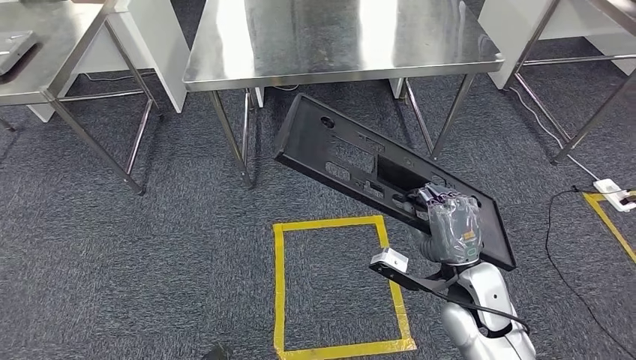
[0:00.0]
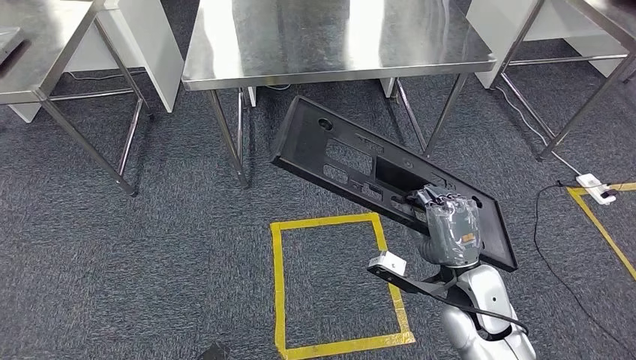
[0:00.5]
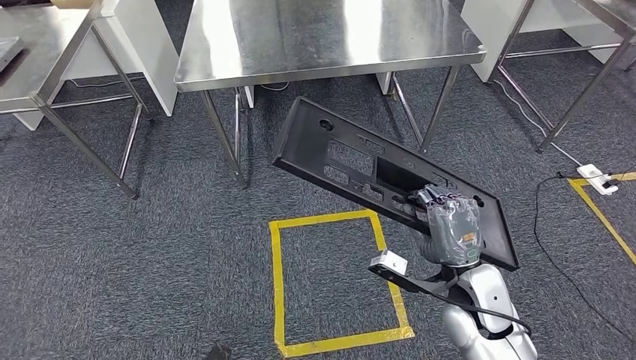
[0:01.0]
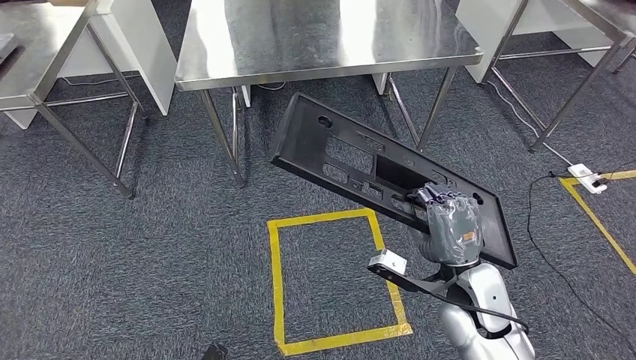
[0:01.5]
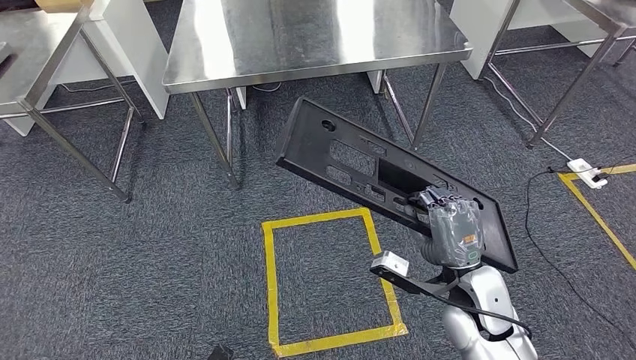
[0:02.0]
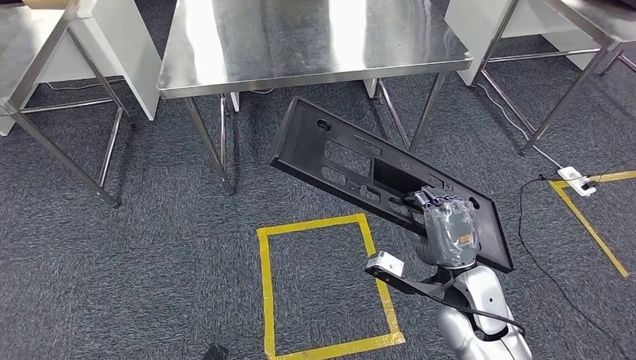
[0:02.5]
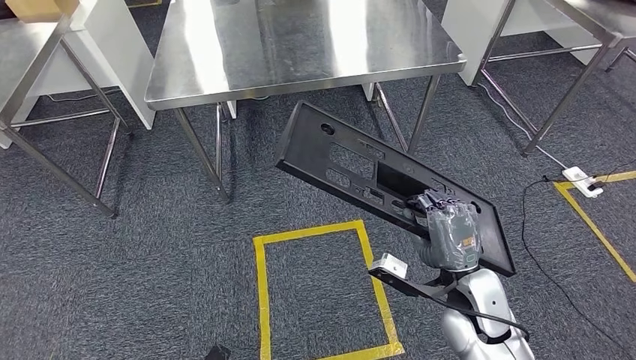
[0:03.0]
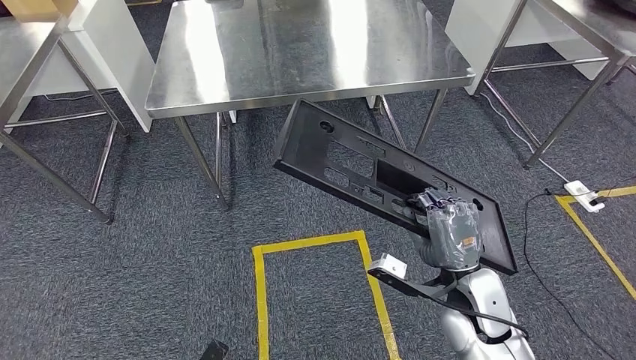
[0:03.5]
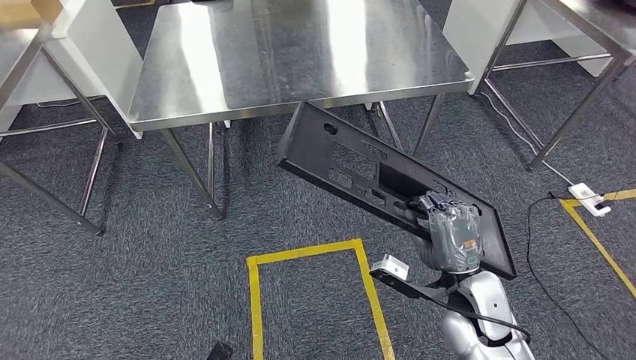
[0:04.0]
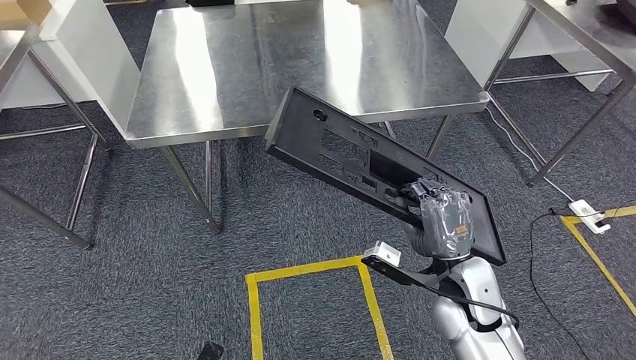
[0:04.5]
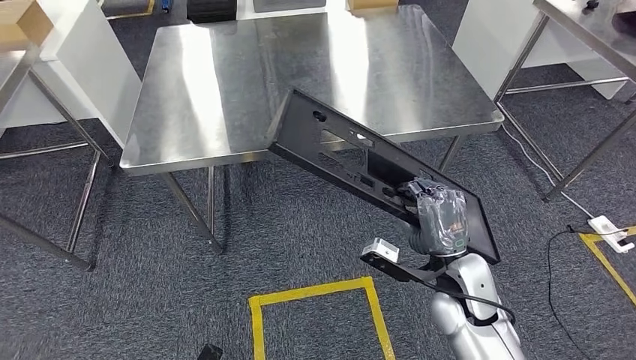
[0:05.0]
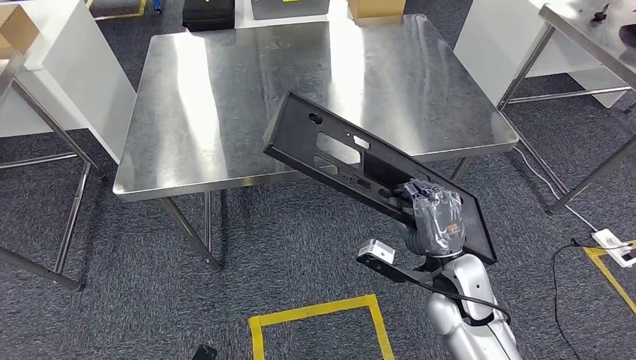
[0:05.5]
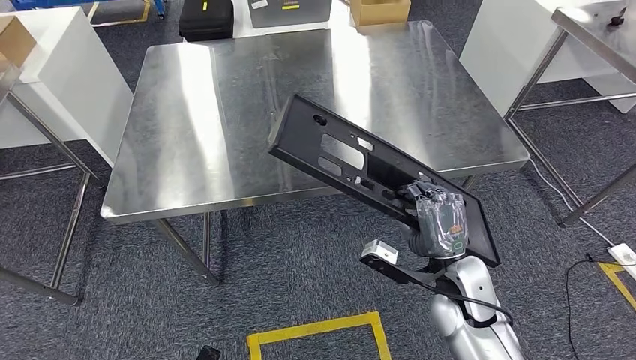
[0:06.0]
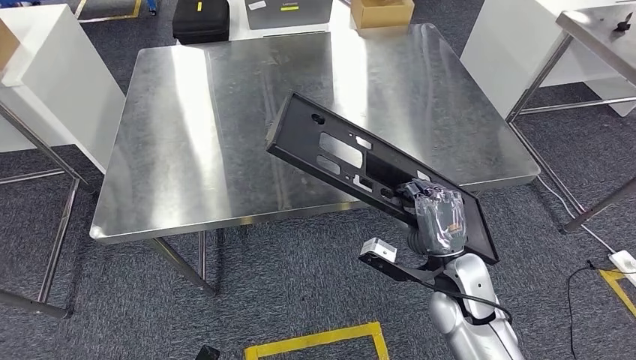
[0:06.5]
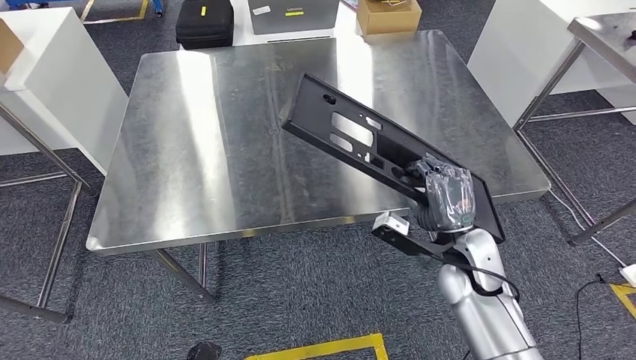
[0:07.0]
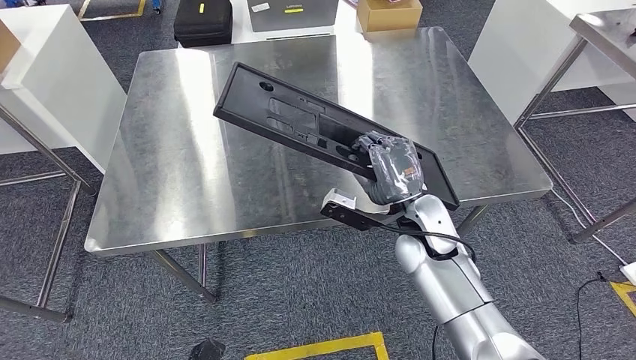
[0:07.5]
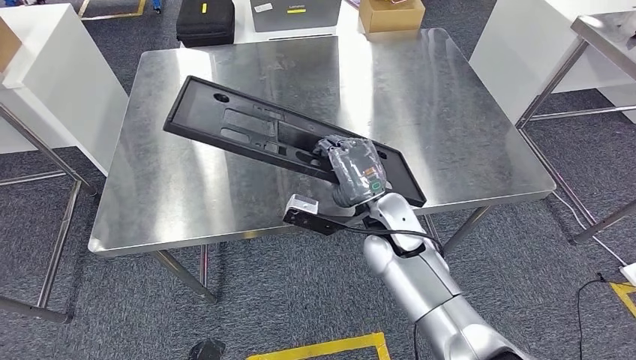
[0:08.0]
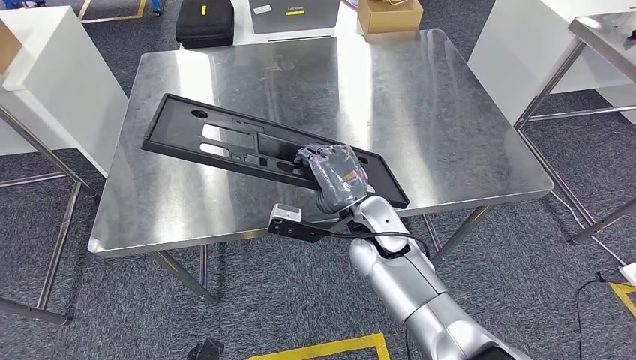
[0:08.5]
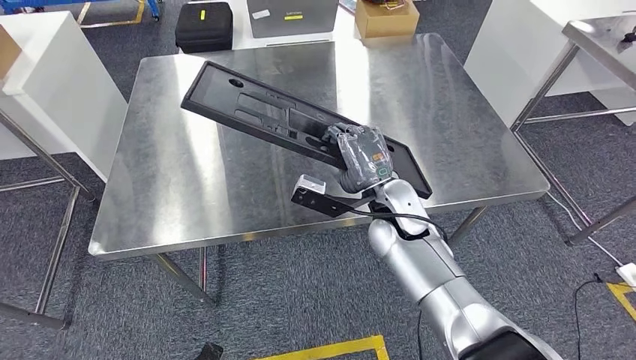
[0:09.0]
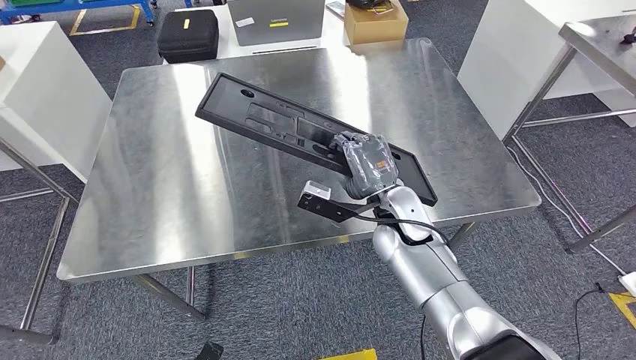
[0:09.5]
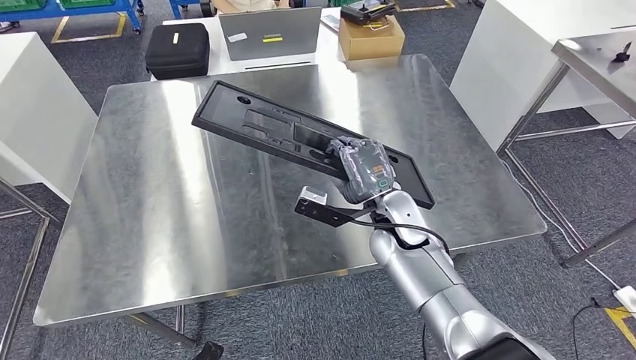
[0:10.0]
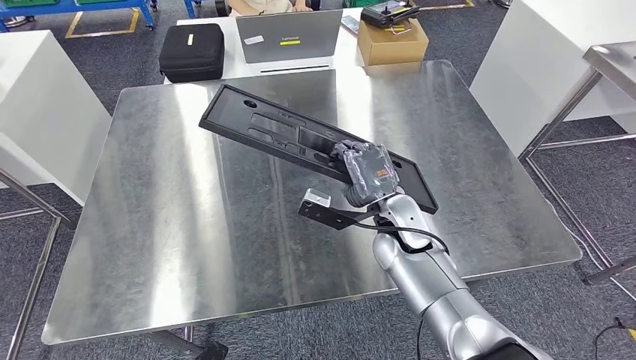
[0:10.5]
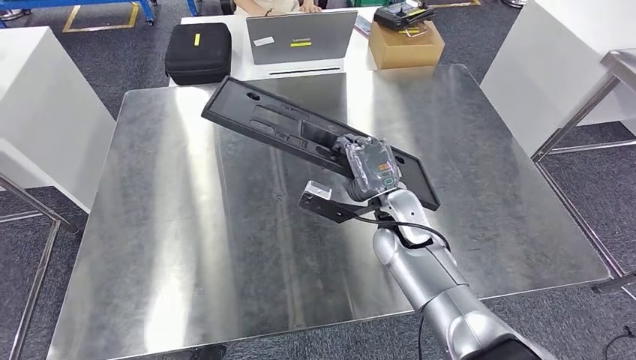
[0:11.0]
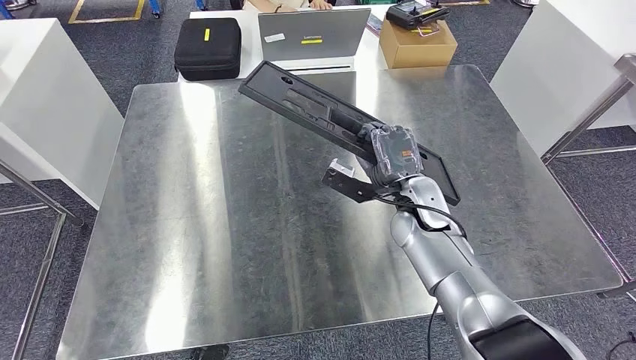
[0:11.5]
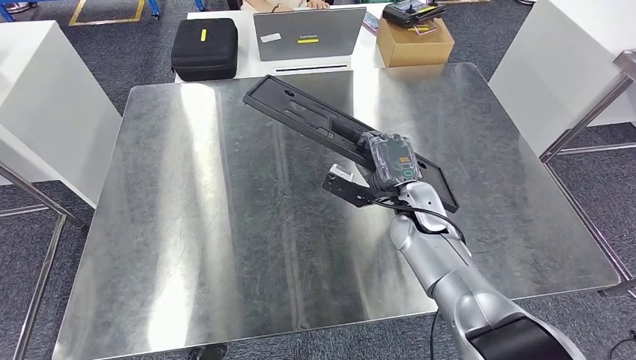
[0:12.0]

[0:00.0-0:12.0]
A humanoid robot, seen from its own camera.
Step, 0:00.0 to 0:07.5: Move the large material to the workbench.

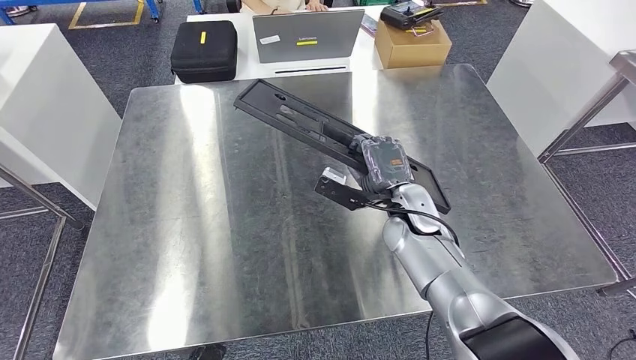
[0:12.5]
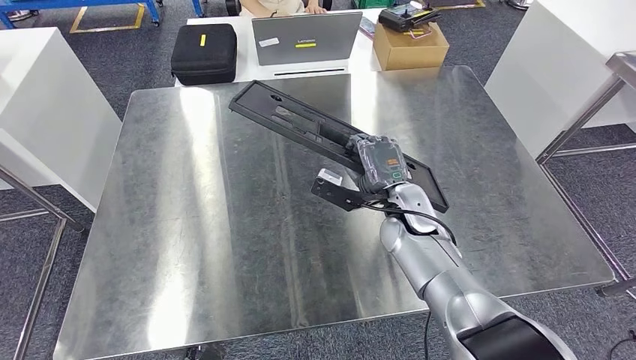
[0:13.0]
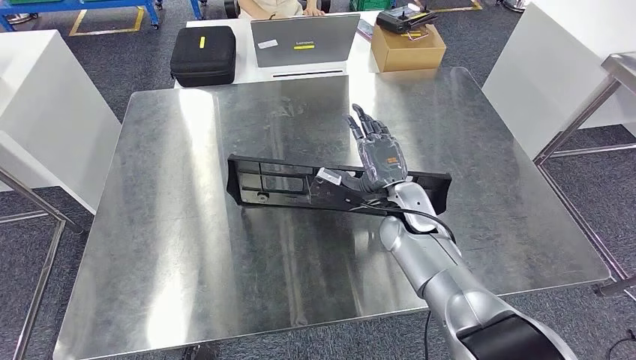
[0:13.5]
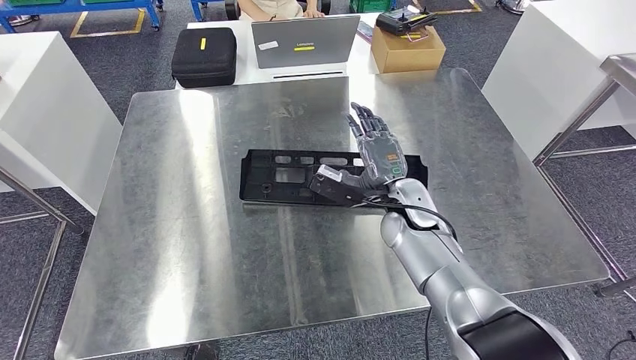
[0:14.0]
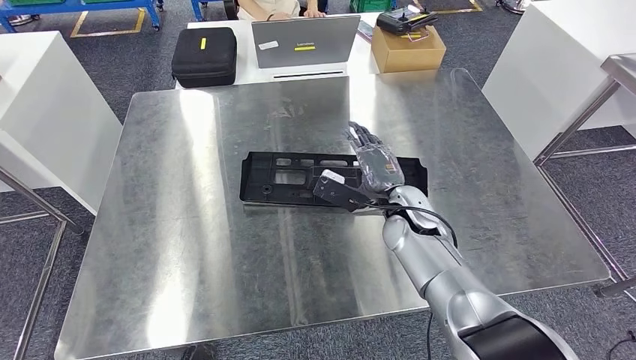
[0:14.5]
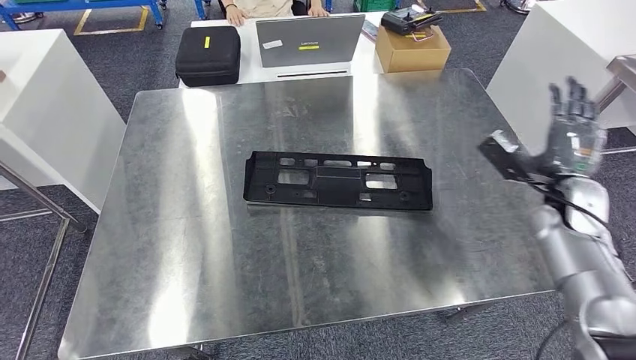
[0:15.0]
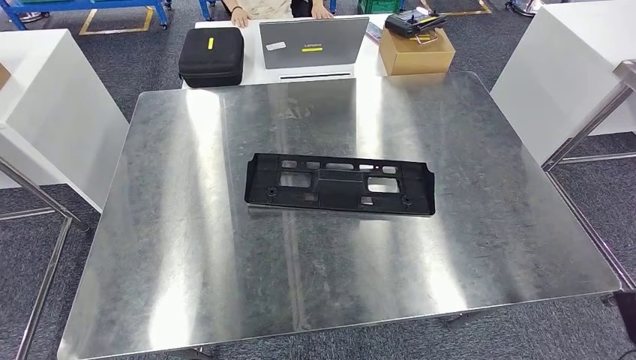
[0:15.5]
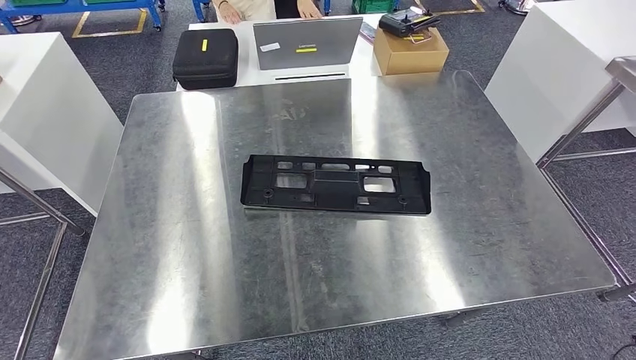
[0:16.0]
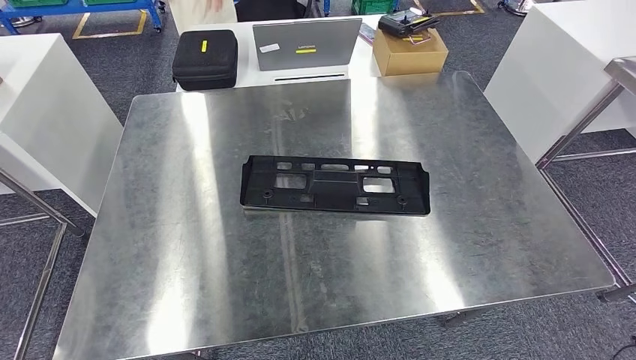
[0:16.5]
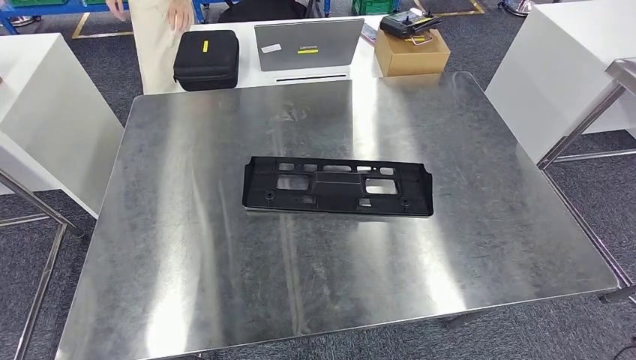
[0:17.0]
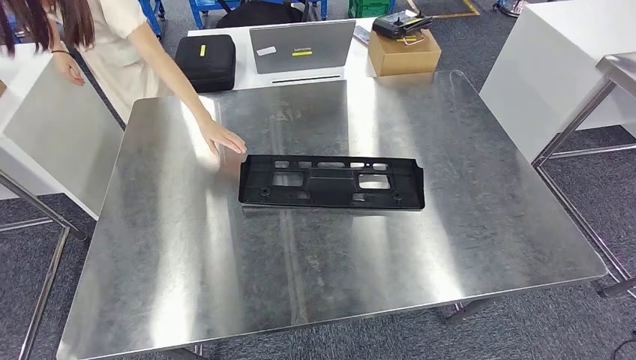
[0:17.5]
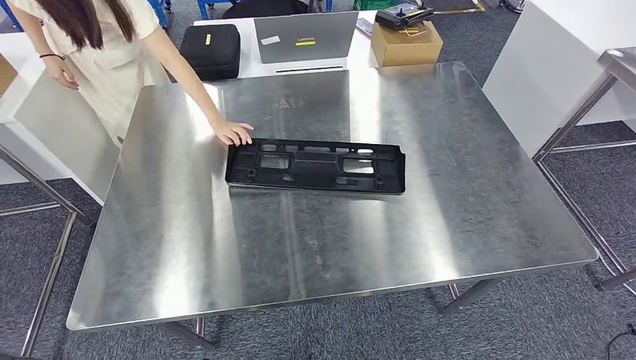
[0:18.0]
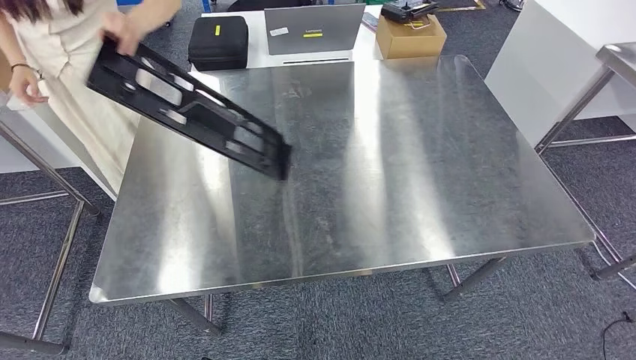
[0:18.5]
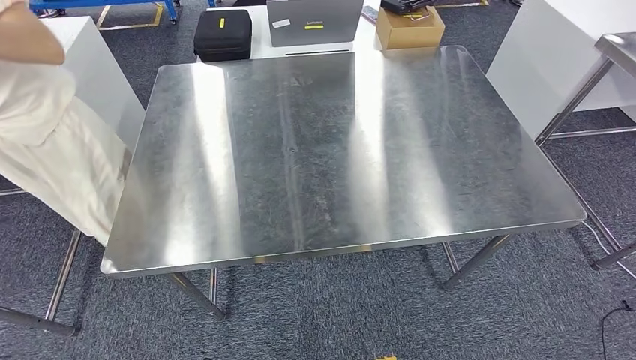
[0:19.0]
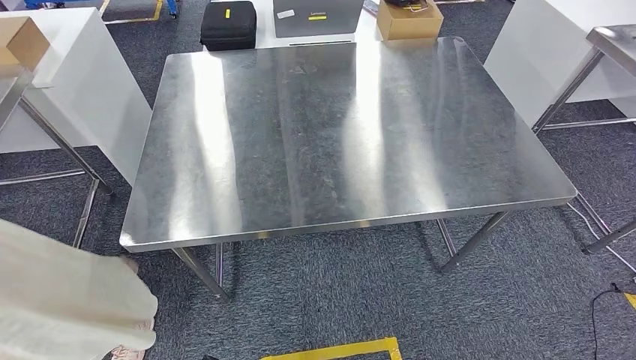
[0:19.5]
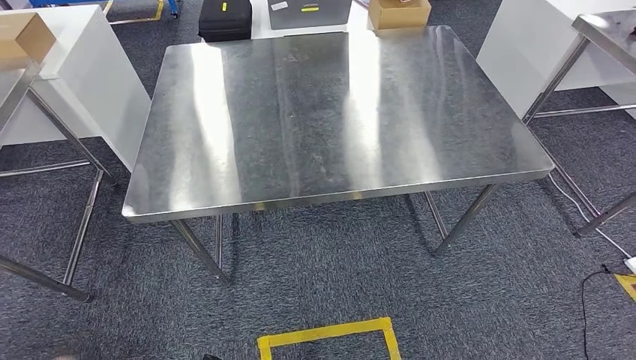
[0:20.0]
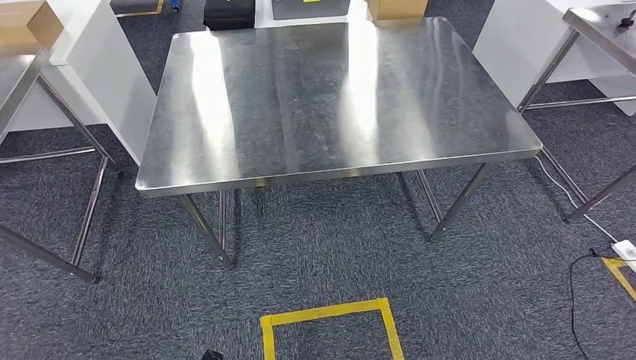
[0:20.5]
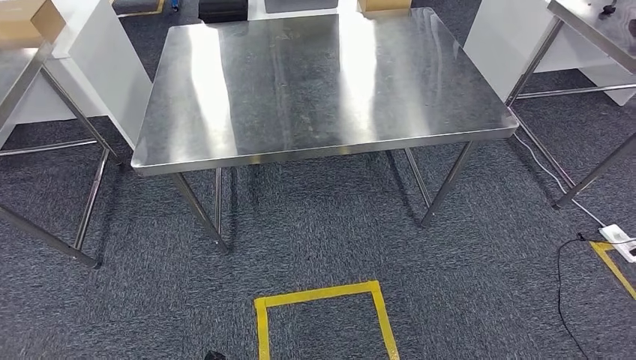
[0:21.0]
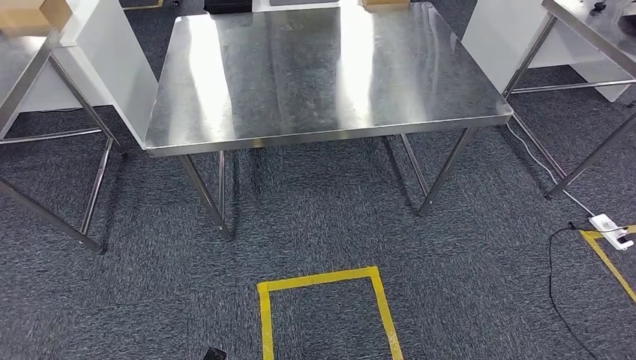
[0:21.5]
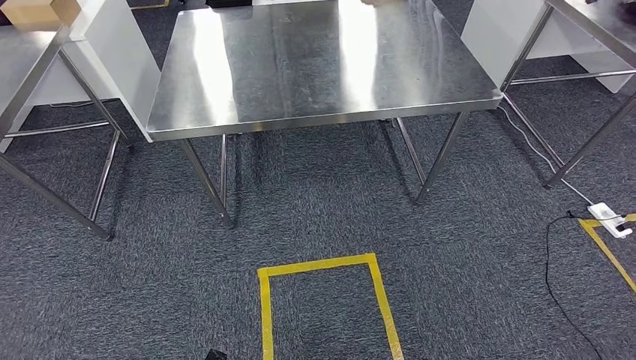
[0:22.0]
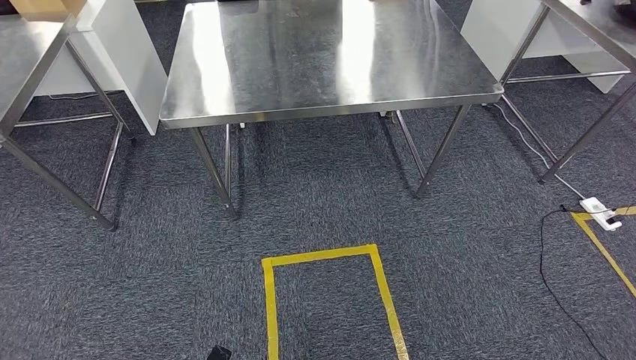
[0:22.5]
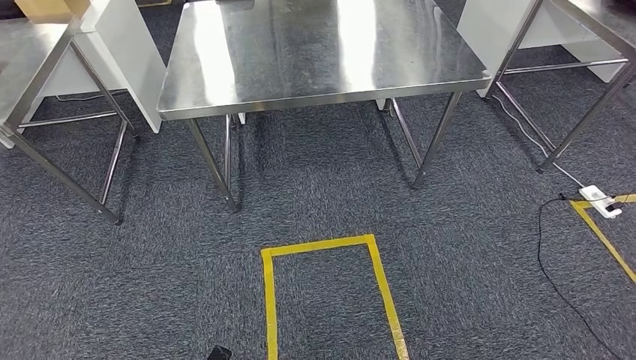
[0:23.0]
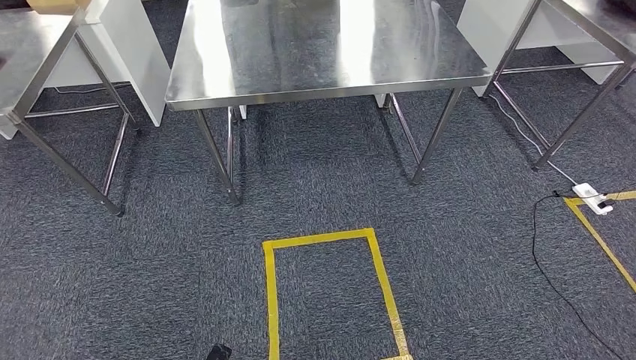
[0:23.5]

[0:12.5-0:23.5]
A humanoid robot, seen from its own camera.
Step, 0:12.5 to 0:15.5: Insert the large material into the corresponding slot on the workbench.
0:12.5 to 0:14.5: The hands make only small movements.
0:14.5 to 0:16.0: The right hand travels backward, to the right and downward by approximately 50 cm.
